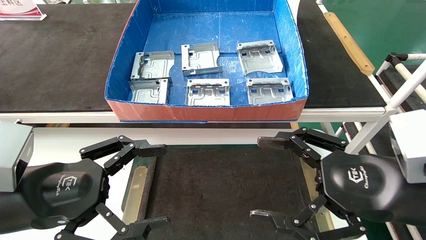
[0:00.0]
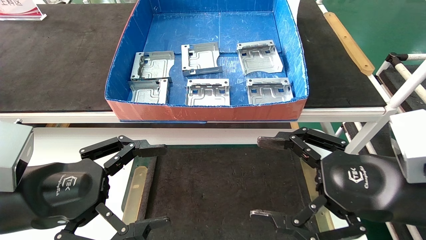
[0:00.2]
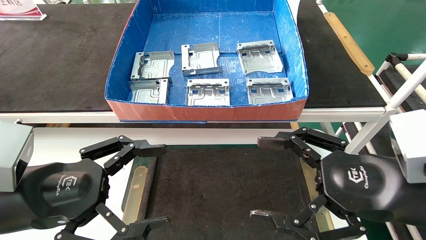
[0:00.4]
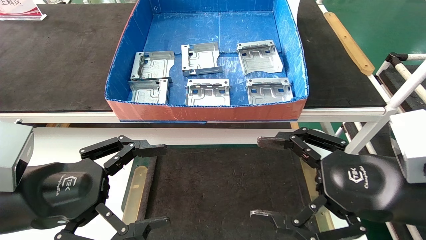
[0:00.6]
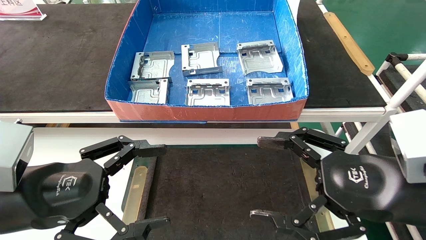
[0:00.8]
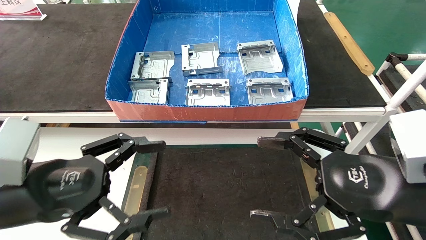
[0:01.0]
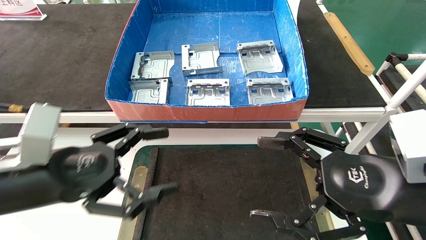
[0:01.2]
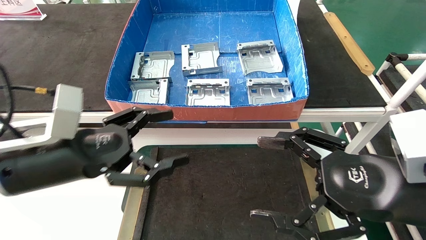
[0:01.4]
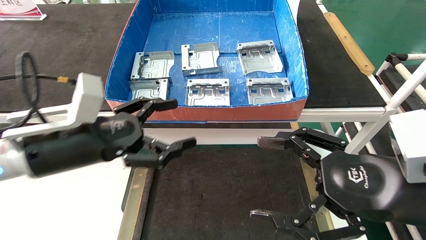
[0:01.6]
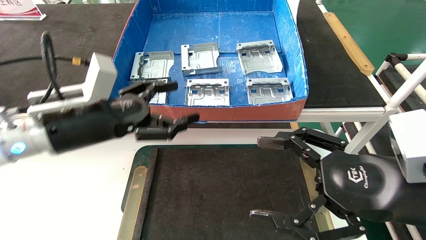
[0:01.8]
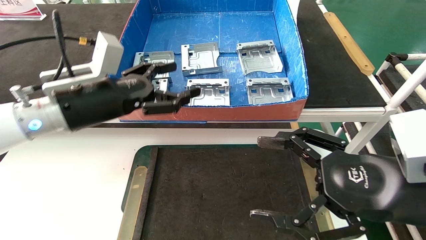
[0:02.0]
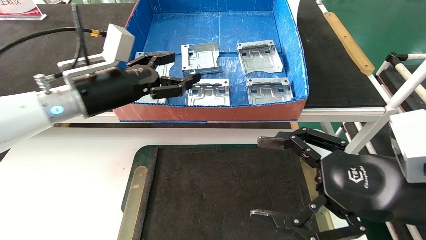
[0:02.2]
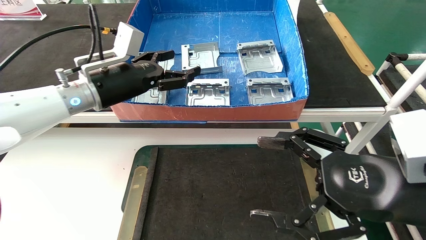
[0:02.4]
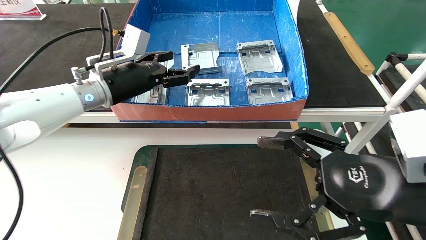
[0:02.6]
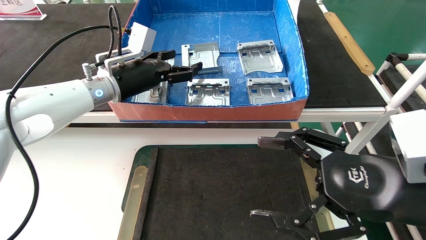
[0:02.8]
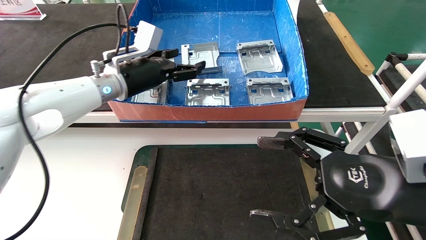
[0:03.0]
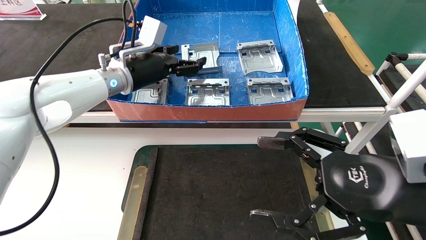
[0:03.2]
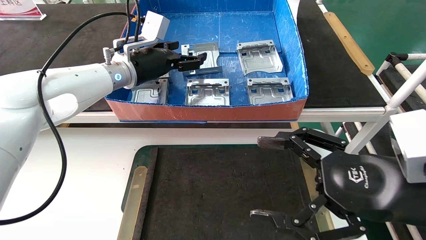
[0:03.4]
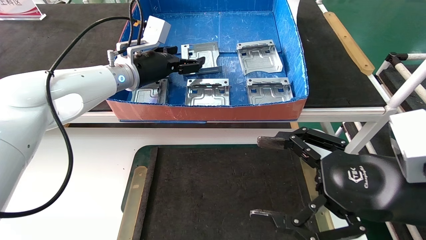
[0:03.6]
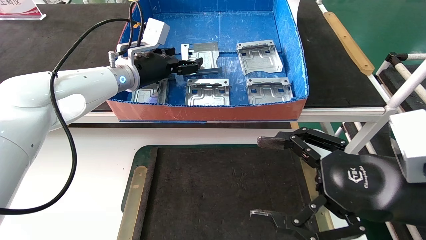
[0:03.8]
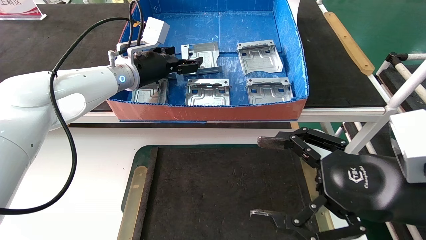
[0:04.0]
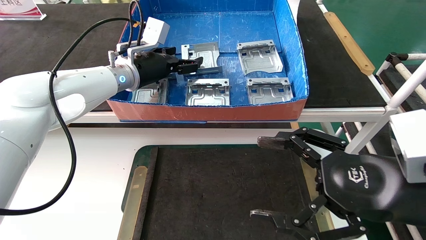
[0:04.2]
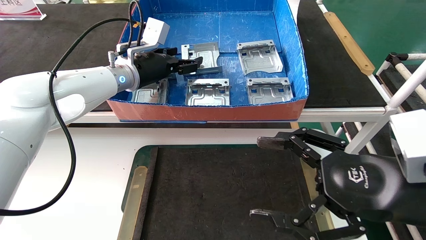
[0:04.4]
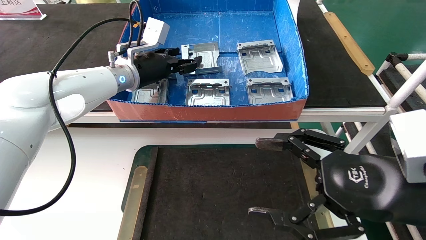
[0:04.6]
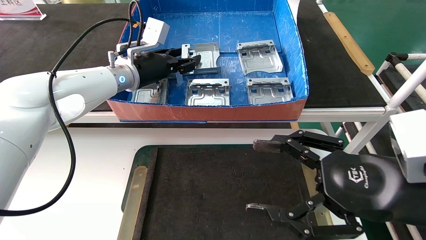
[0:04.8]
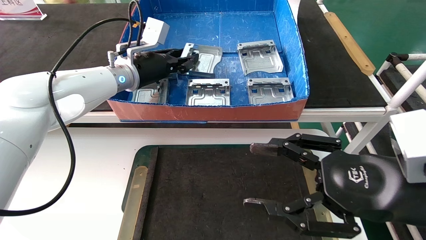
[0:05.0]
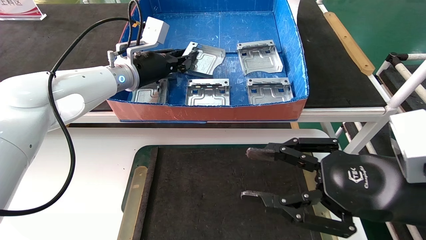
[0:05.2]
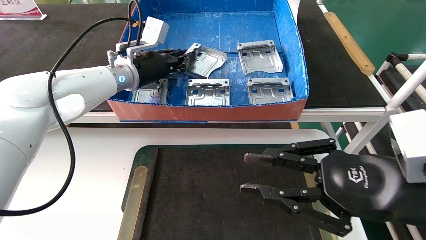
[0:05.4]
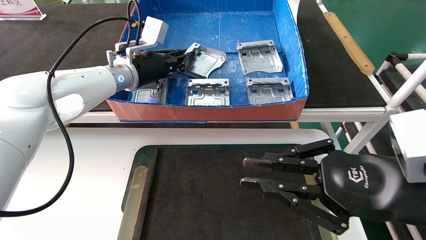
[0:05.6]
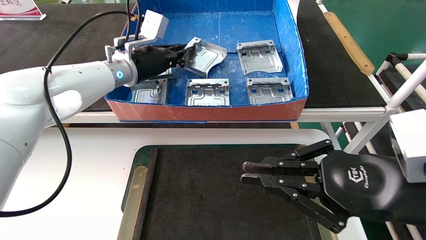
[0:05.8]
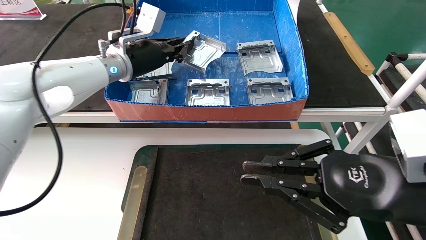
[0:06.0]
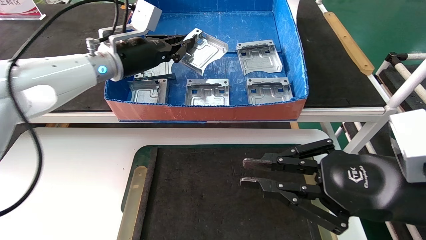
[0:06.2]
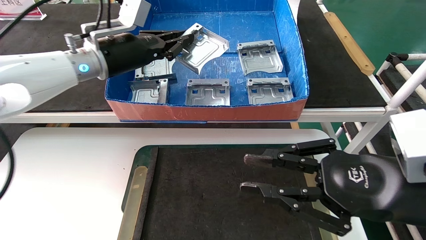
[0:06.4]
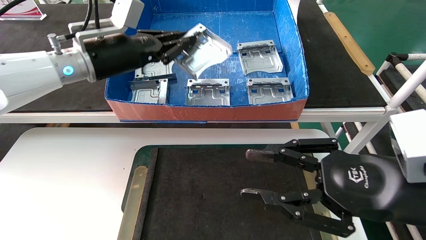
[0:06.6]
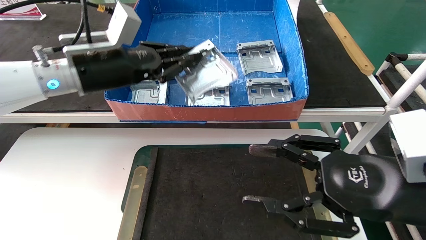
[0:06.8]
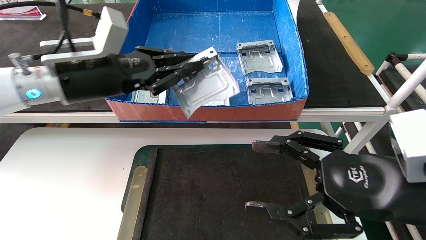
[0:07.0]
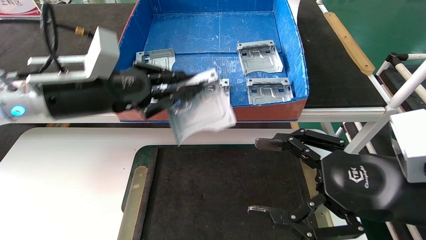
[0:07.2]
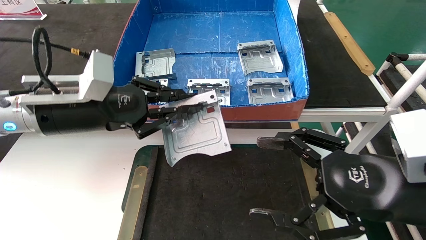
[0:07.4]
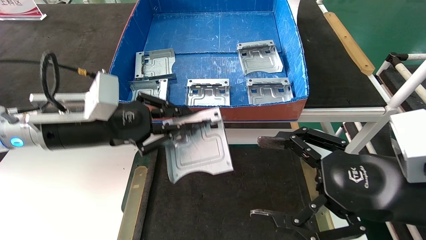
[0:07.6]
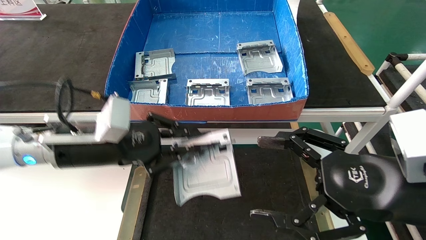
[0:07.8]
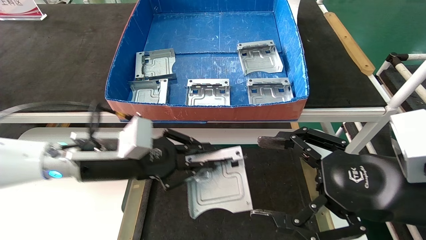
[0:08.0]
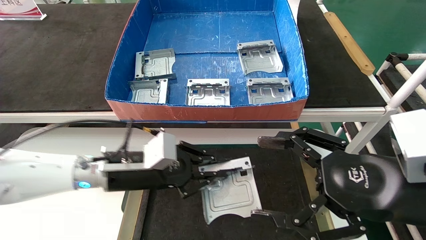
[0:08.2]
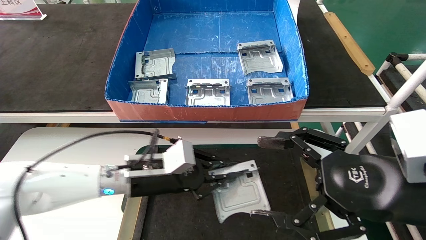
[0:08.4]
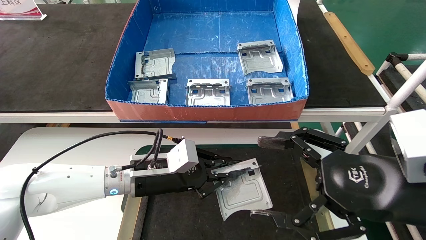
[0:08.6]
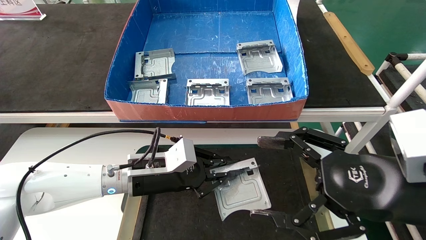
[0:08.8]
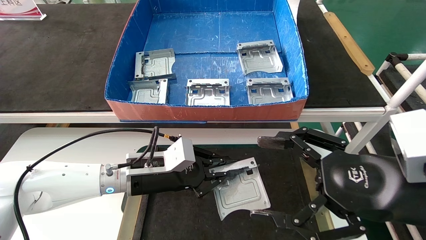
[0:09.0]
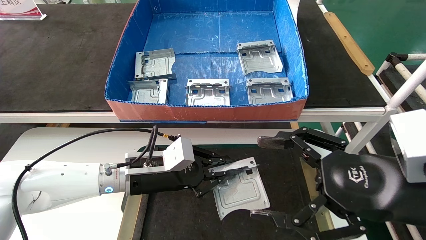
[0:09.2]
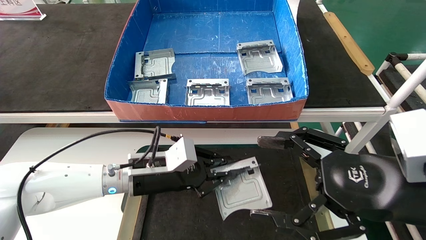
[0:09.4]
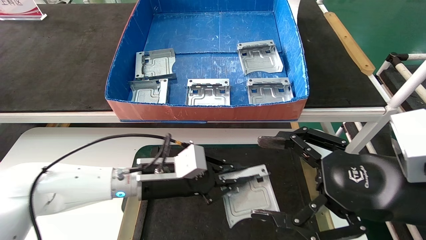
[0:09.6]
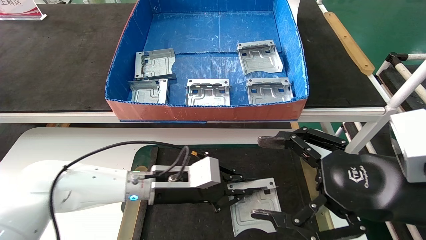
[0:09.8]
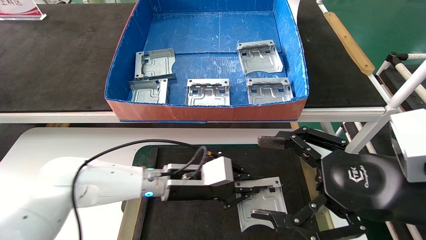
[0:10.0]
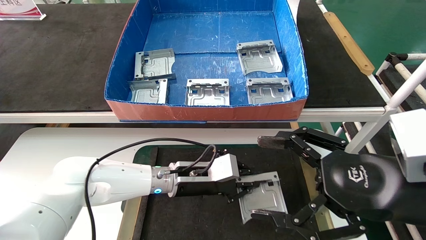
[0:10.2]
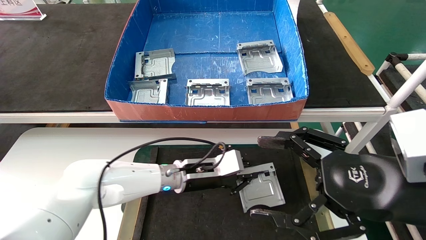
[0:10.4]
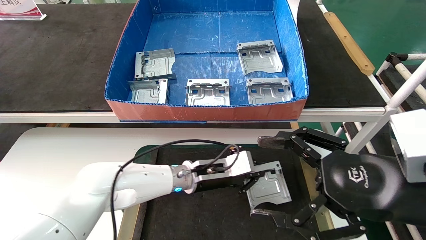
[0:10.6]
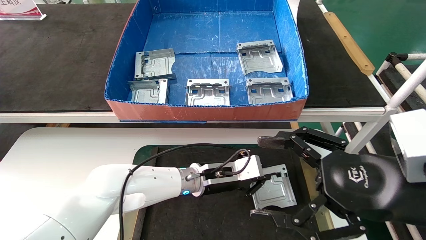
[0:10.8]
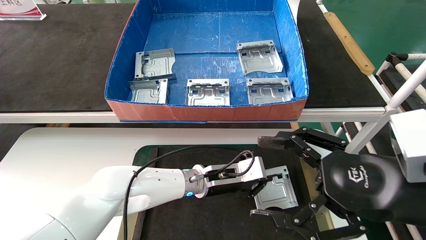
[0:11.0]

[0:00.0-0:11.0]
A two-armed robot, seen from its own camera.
Task of the whole recording: take the accessories out of the box and place them on the table.
Step, 0:01.2 to 0:05.2: Pick up the hard drive bracket from the feeding area.
0:00.0 to 0:01.6: The left gripper heads forward, covering about 10 cm.
0:01.6 to 0:03.2: The left gripper moves forward and upward, about 20 cm.
0:03.2 to 0:04.8: The grippers stay close to where they were, moving slightly.
0:04.8 to 0:06.2: The right gripper closes its fingers. Meanwhile the left gripper closes its fingers.
0:06.2 to 0:07.8: The right gripper opens up, while the left gripper heads backward and downward, covering some 20 cm.
0:07.8 to 0:09.4: The left gripper heads downward and to the right, covering roughly 10 cm.
0:09.4 to 0:11.0: The left gripper heads to the right and forward, covering roughly 15 cm.

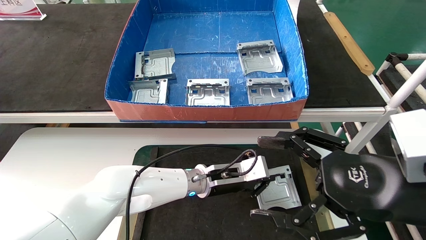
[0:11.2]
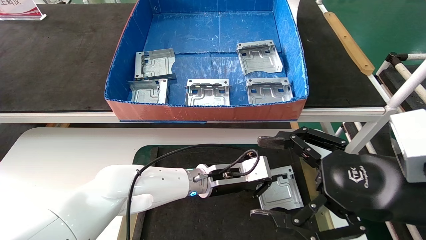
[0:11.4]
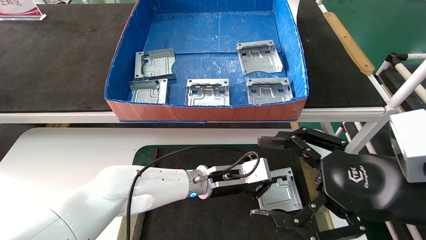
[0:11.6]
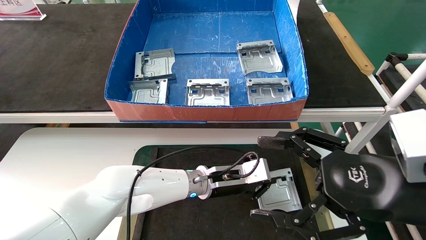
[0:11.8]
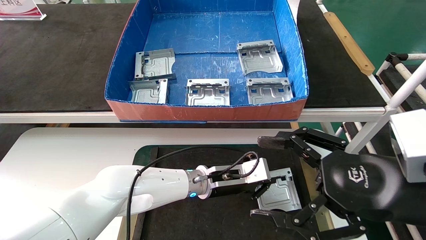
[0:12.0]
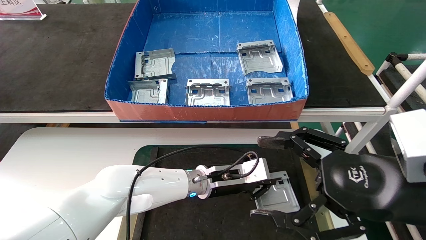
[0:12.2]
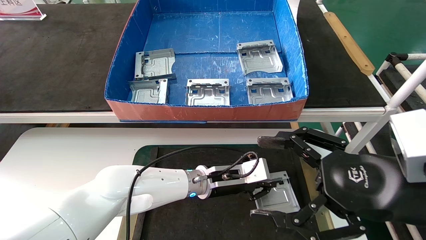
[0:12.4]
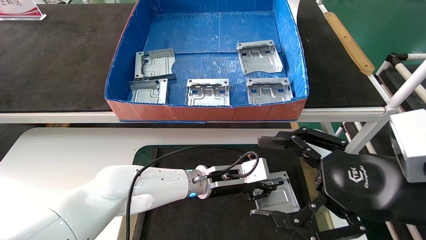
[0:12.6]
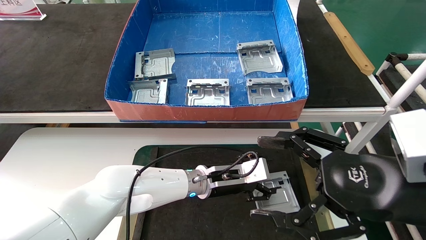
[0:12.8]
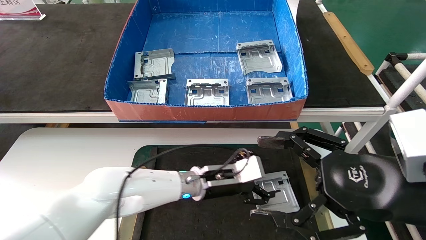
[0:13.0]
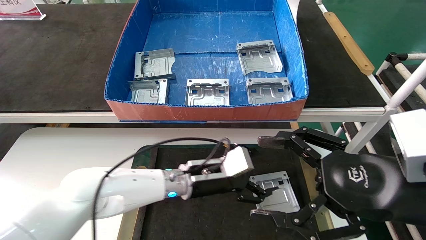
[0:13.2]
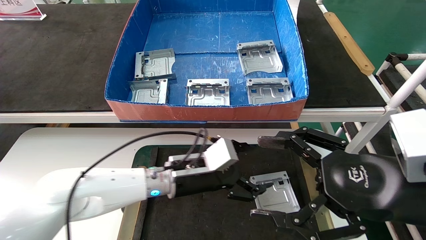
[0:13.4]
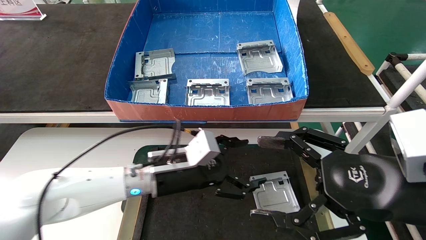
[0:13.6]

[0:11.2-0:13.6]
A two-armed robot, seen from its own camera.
Task of the whole recording: take the accessories out of the box and place them on the table.
0:11.2 to 0:12.4: Neither gripper changes place.
0:12.4 to 0:13.6: The left gripper shifts some 10 cm to the left and backward, and opens up.
